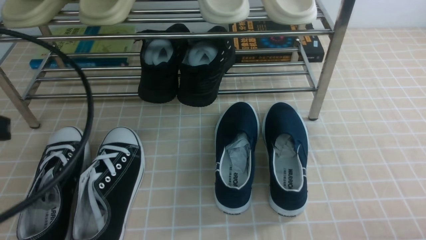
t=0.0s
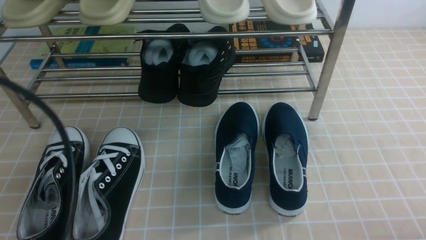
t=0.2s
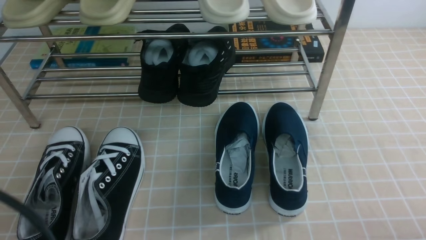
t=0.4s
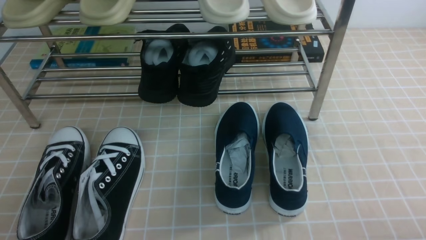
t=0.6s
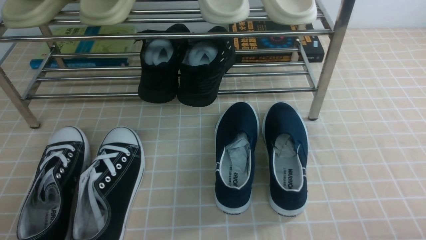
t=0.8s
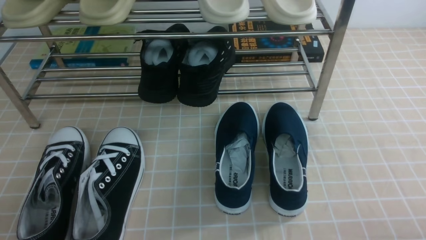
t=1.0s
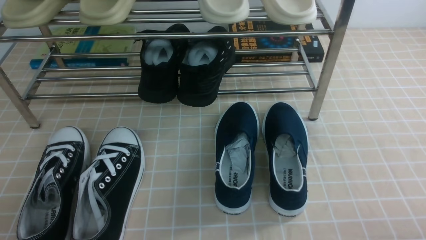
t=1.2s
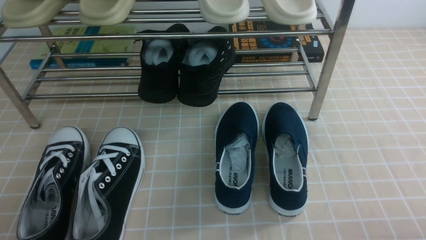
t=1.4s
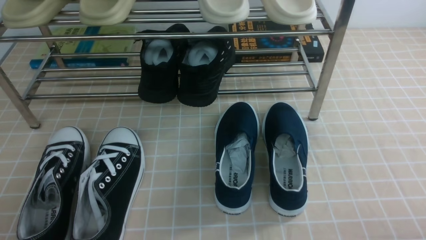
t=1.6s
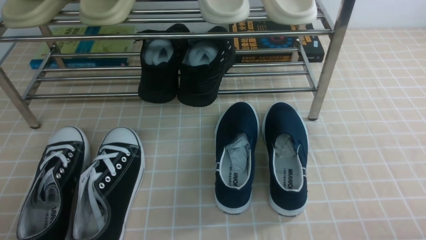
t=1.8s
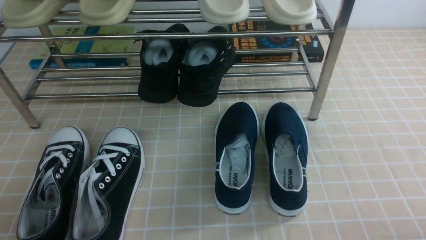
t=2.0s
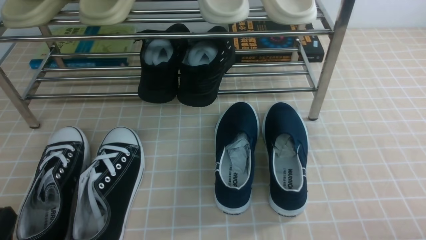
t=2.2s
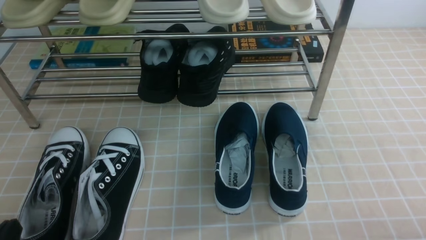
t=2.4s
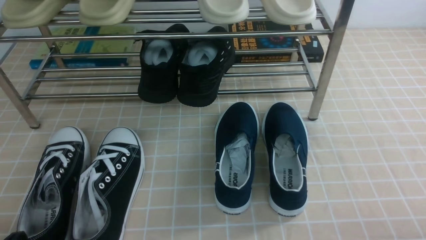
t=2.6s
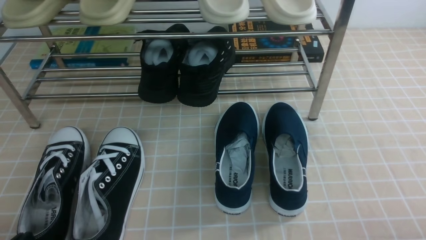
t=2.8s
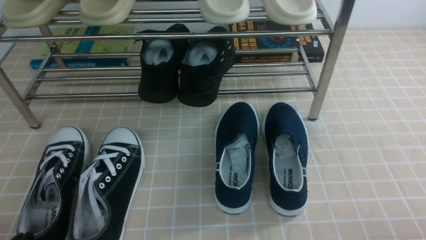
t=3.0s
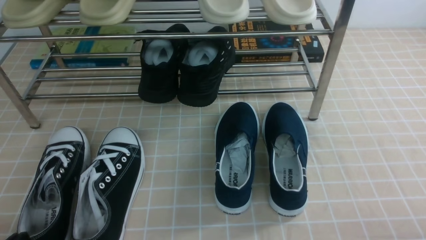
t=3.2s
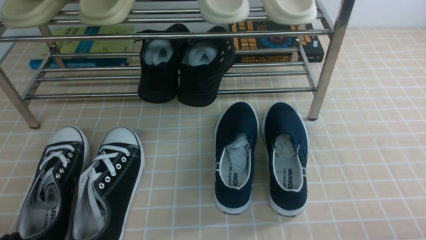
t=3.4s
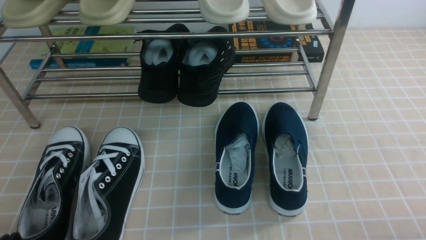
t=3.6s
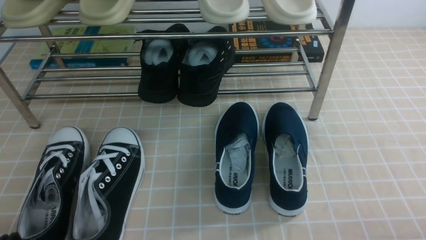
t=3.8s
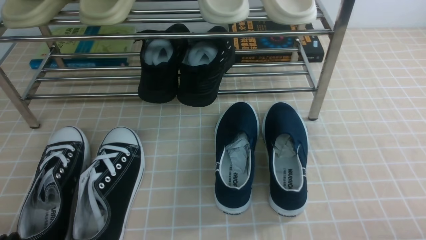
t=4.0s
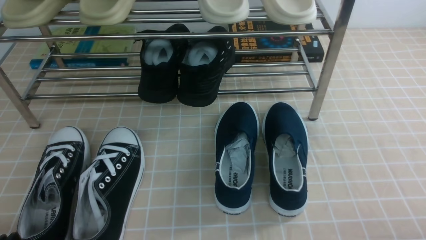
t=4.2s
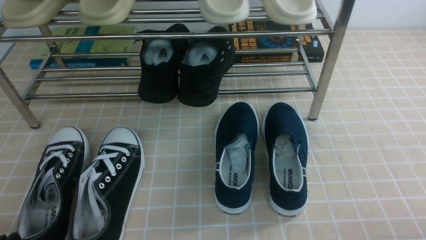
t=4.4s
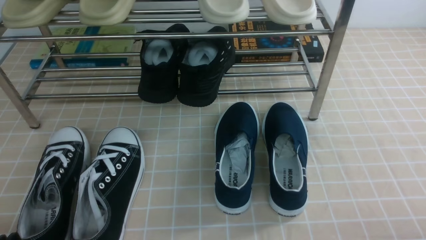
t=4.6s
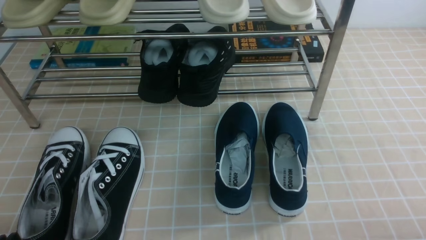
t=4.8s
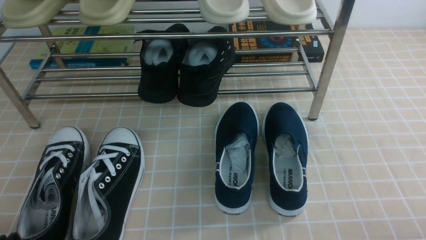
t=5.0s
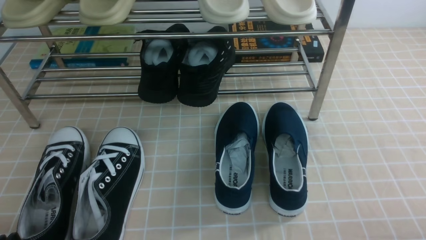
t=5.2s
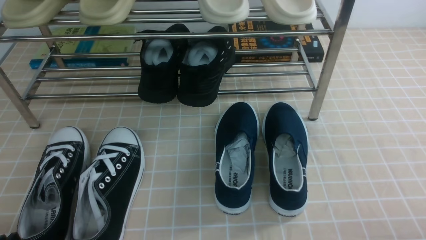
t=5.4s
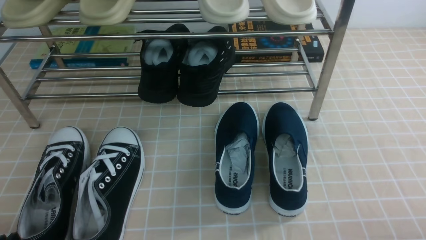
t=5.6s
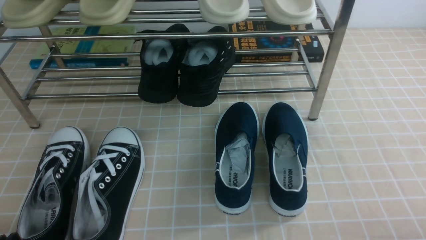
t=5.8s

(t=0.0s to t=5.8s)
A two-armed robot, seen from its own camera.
t=0.0s - t=1.4s: The left gripper travels backward and downward by some 15 cm.
t=4.4s - t=5.8s: The two grippers keep their place.

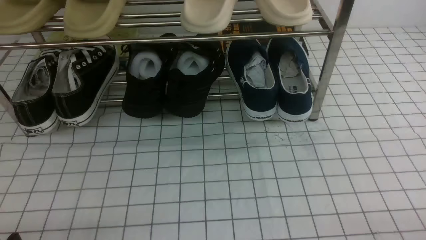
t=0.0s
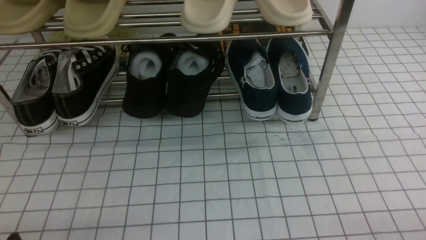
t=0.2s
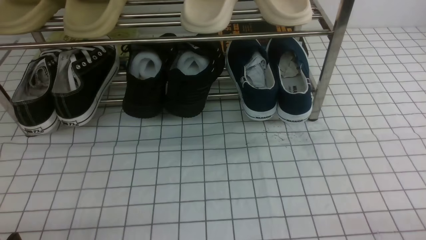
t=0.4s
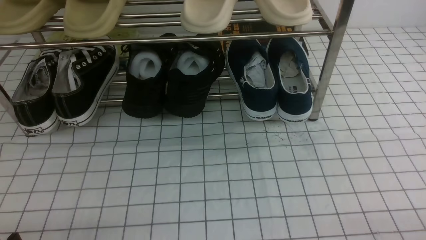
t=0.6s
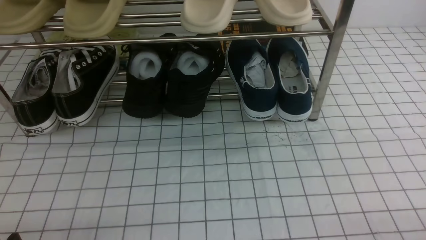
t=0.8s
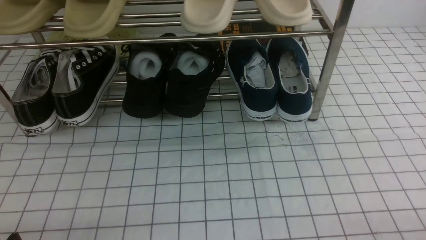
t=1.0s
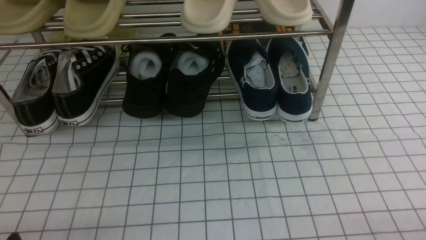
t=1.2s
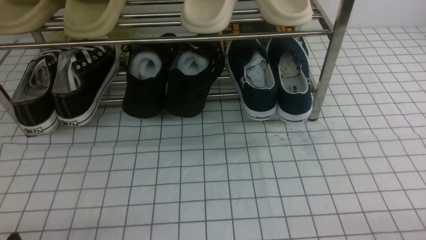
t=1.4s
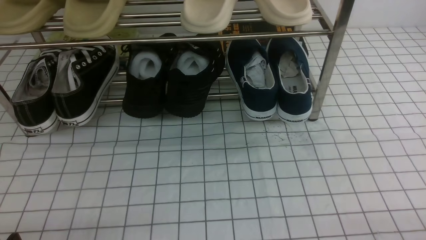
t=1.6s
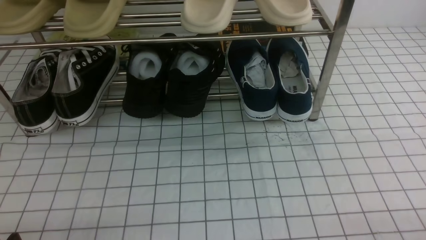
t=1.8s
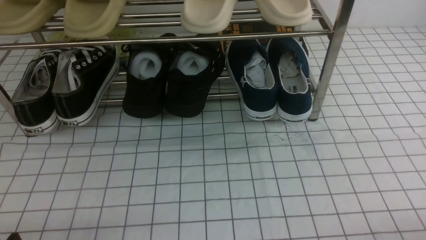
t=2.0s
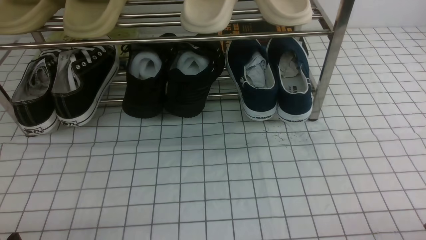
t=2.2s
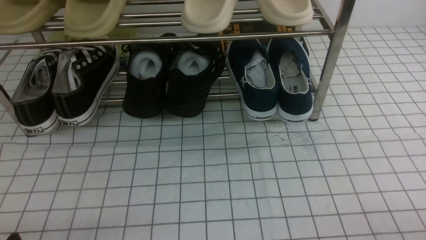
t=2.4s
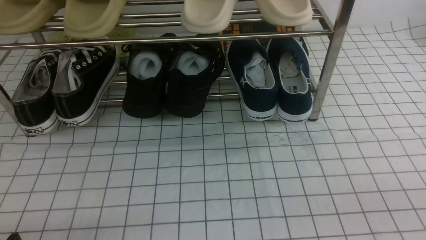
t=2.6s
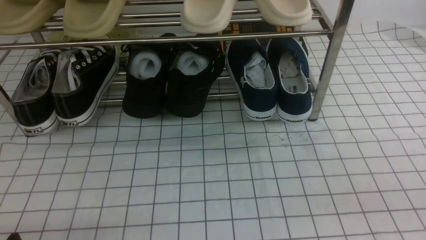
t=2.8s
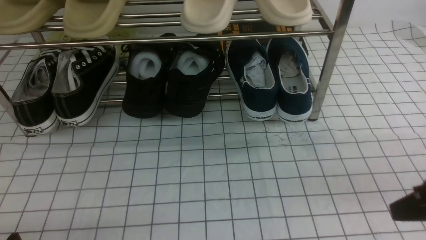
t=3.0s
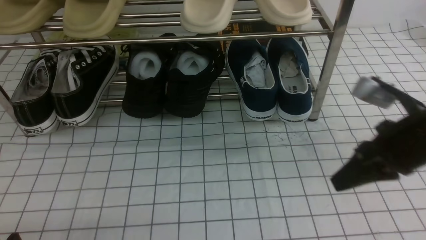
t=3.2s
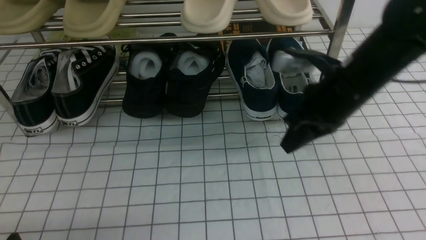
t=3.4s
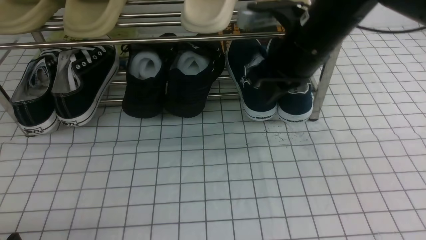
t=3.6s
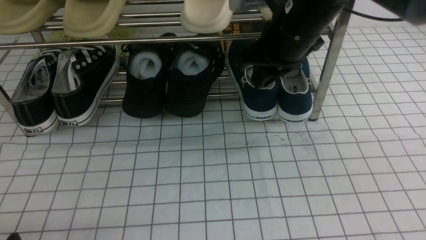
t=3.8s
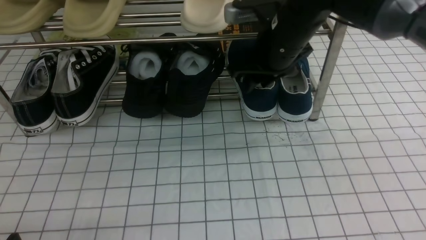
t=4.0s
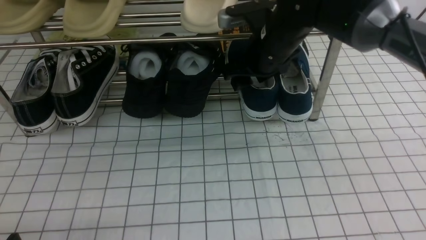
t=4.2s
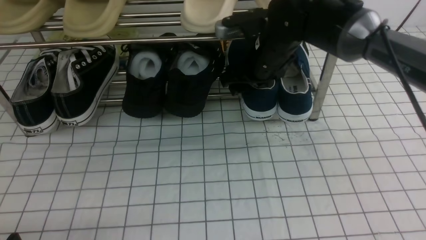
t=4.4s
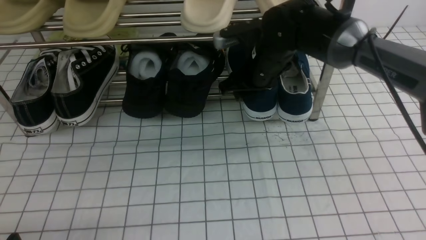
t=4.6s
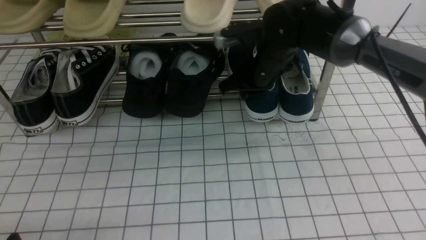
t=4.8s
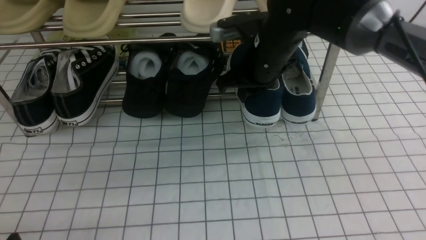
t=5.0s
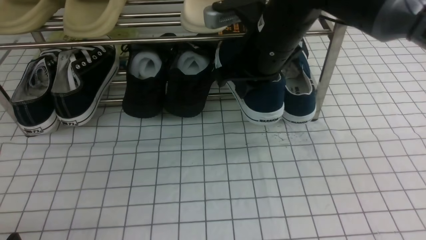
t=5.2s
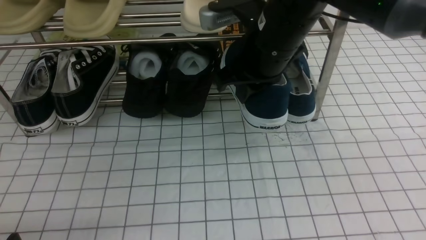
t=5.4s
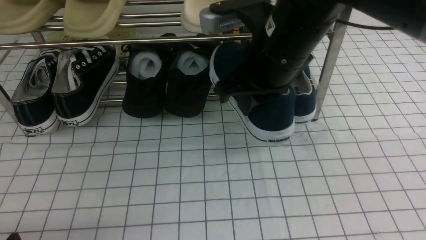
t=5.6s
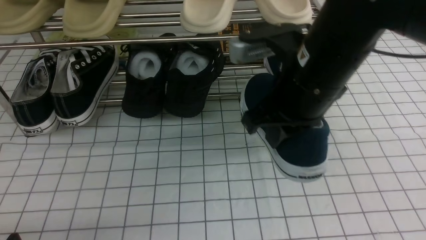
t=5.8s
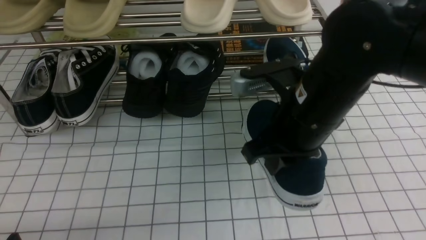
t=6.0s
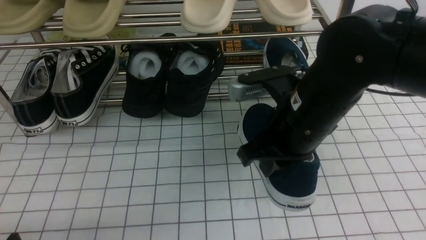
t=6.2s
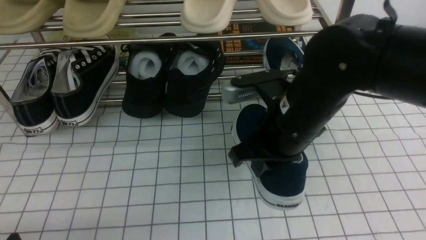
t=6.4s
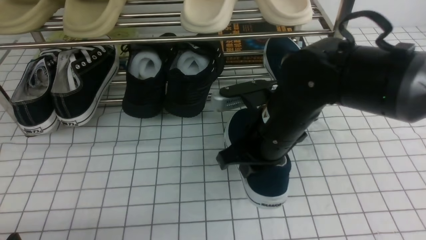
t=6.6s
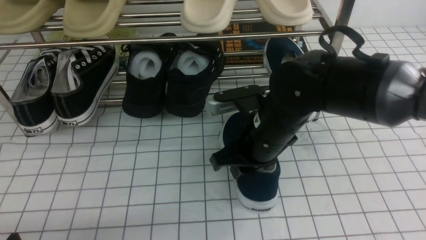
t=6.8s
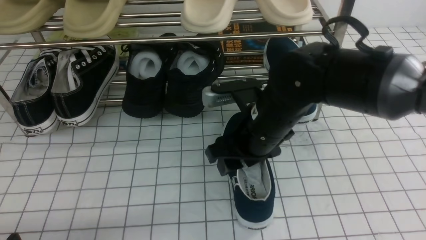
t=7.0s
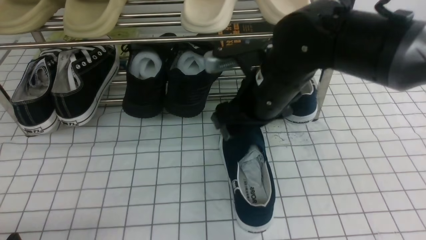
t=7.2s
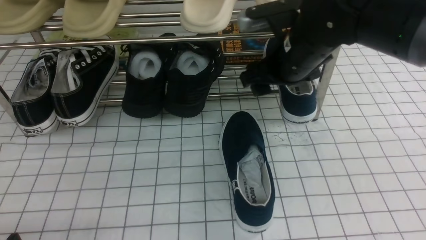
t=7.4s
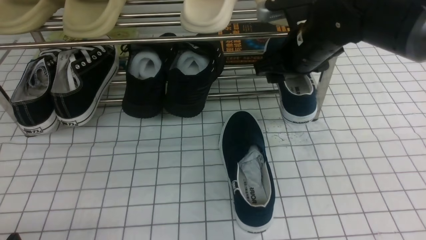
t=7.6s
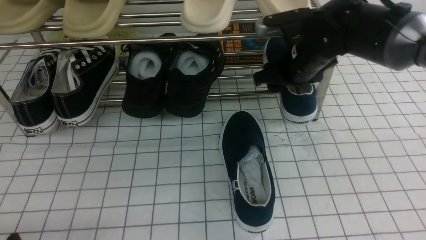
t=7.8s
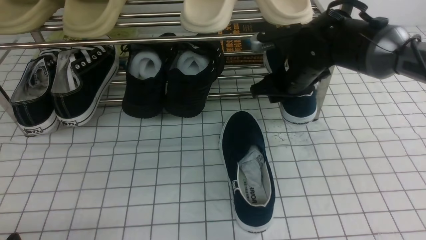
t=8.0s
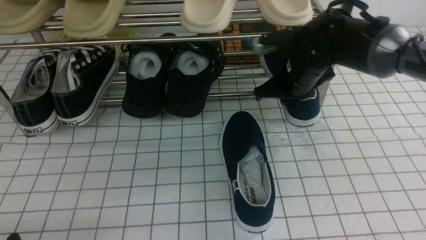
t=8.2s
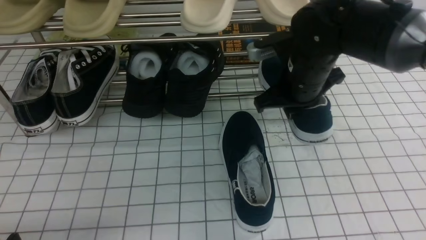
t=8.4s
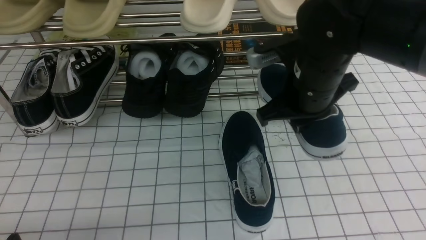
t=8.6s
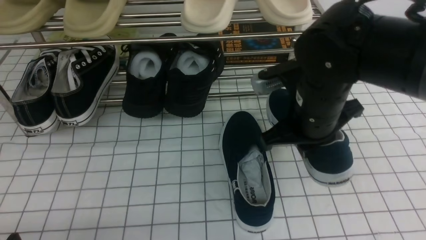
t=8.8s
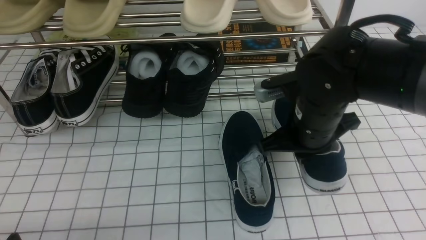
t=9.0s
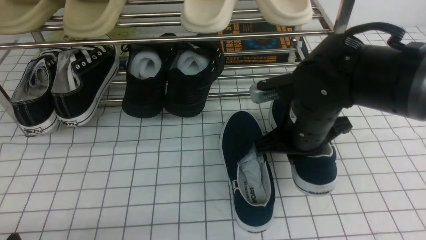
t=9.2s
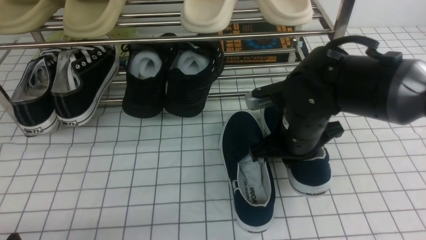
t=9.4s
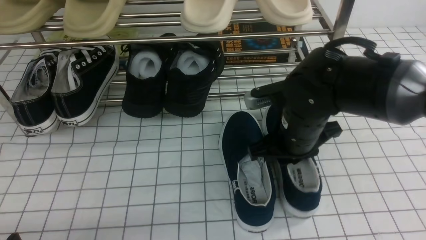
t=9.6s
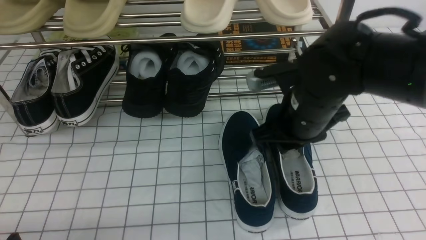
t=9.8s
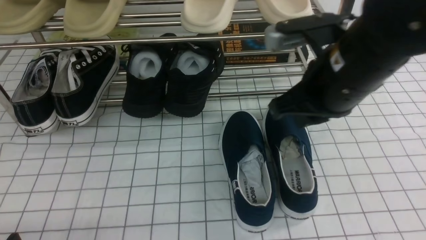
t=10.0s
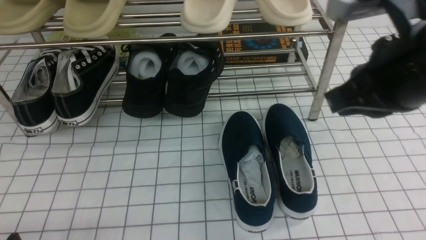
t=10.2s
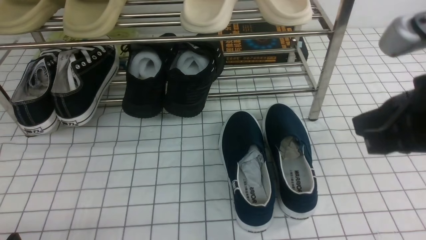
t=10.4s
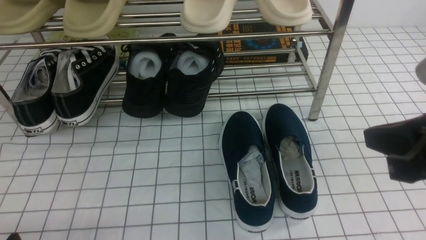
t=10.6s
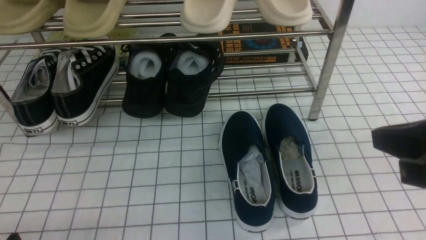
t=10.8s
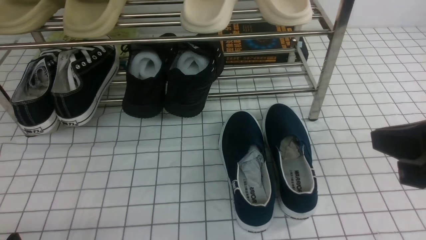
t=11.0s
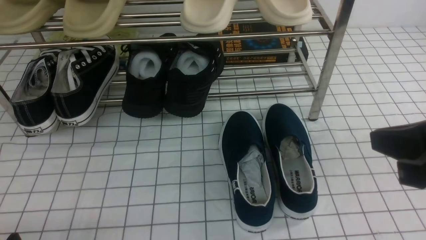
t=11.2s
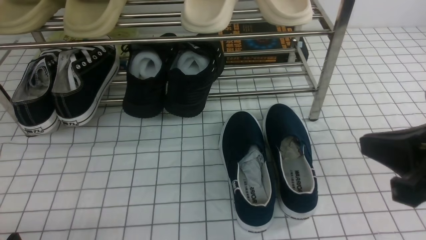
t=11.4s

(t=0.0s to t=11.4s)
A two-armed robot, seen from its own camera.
Step, t=0.0s - t=4.6s: use the right arm to clamp a shoe on the right side of the shoe rack.
Step, t=4.8s - t=7.0s: use the right arm to take out the clamped shoe from the shoe rack and put it down.
Step, t=7.4s - t=8.0s: use the right arm to clamp a shoe on the right side of the shoe rack.
Step, t=8.2s - t=10.0s: use the right arm to take out the clamped shoe from the shoe rack and put it down.
t=0.0s - t=1.4s: Both grippers stay about where they are.
t=2.8s - t=4.2s: The right gripper is displaced forward and to the left by some 35 cm, and opens up.
t=4.2s - t=5.6s: The right gripper shifts some 15 cm backward and upward, and closes up.
t=5.6s - t=7.2s: The right gripper is displaced downward by about 5 cm, and opens its fingers.
t=7.2s - t=8.6s: The right gripper travels forward and back again, roughly 10 cm each way, and closes up.
t=8.6s - t=10.0s: The right gripper goes roughly 10 cm backward and upward.
t=10.0s - t=11.4s: The right gripper is displaced backward and to the right by approximately 15 cm.
